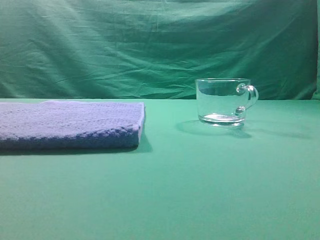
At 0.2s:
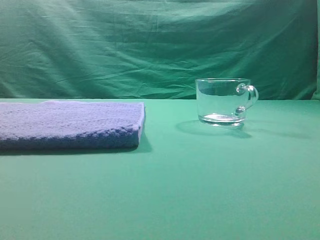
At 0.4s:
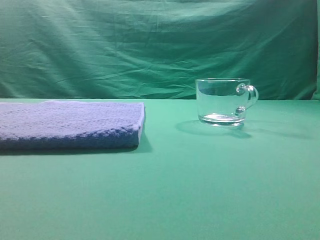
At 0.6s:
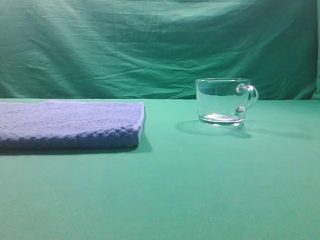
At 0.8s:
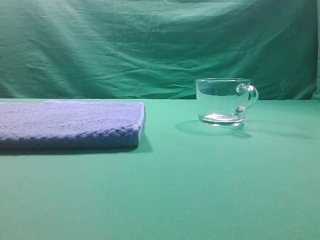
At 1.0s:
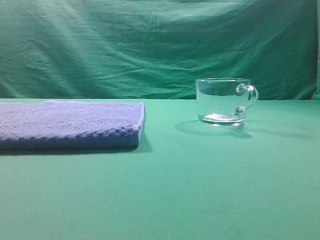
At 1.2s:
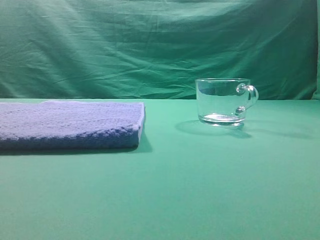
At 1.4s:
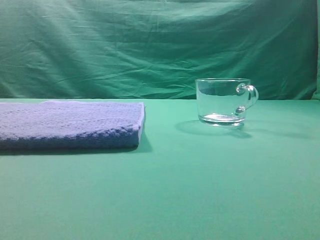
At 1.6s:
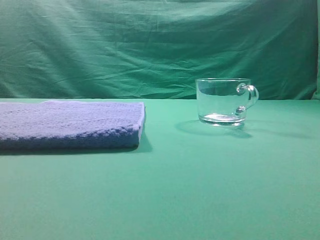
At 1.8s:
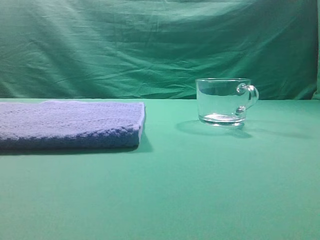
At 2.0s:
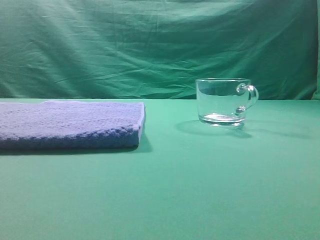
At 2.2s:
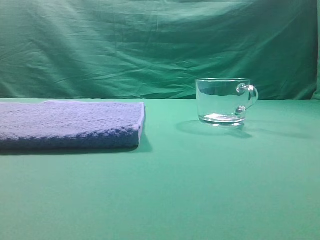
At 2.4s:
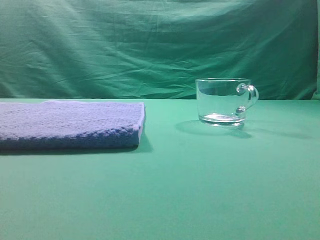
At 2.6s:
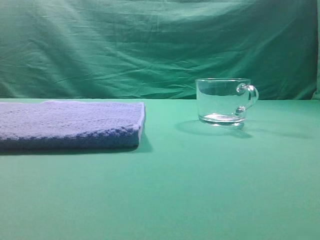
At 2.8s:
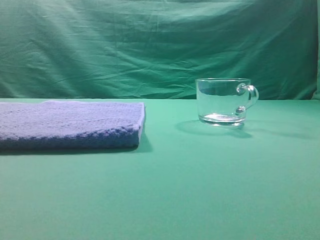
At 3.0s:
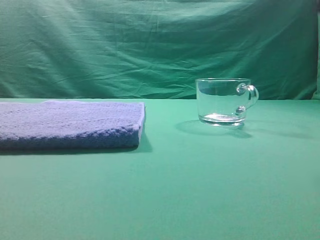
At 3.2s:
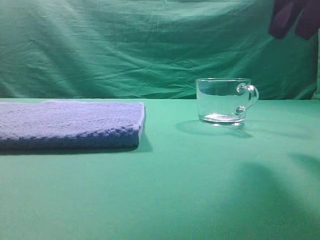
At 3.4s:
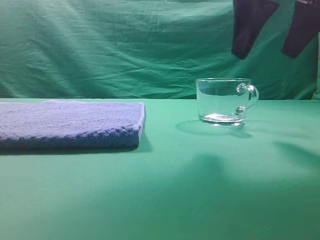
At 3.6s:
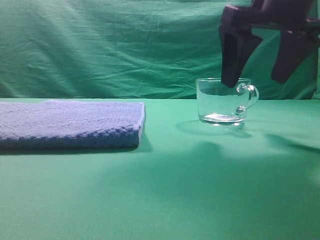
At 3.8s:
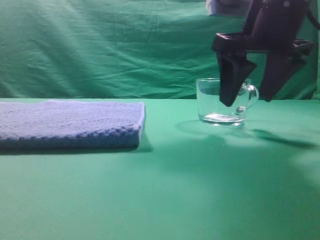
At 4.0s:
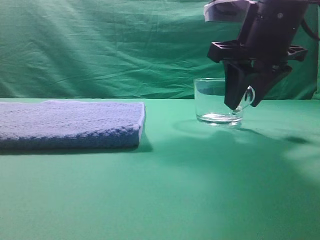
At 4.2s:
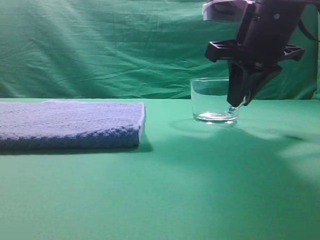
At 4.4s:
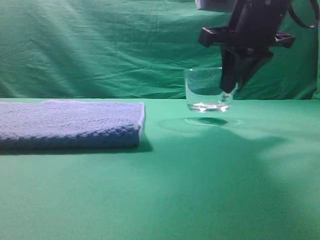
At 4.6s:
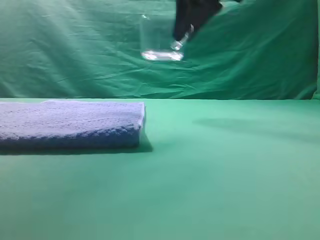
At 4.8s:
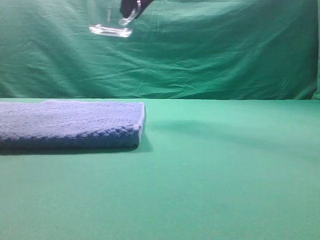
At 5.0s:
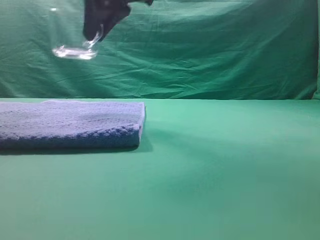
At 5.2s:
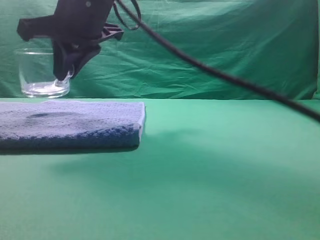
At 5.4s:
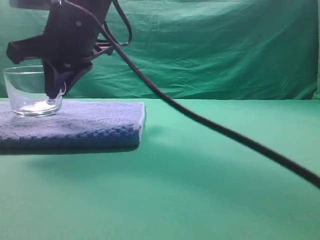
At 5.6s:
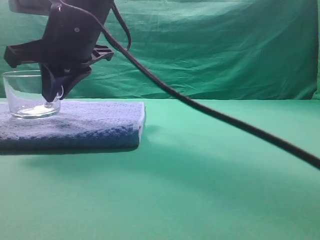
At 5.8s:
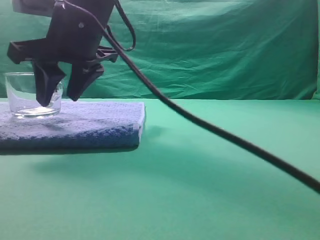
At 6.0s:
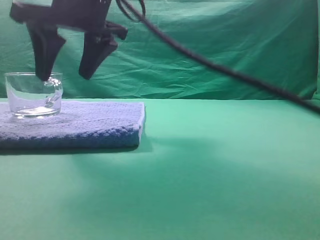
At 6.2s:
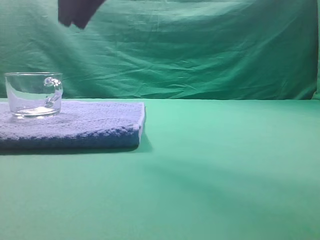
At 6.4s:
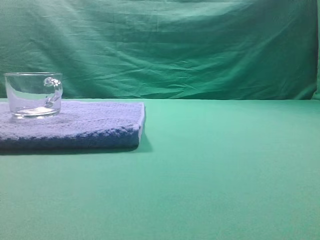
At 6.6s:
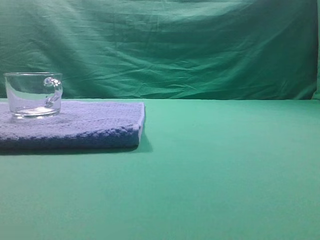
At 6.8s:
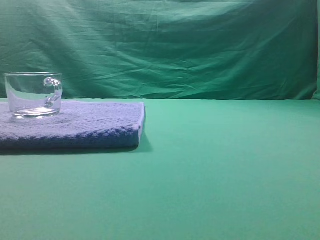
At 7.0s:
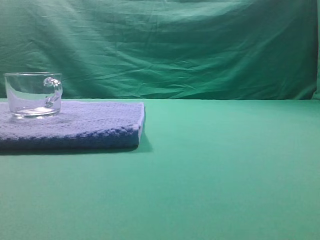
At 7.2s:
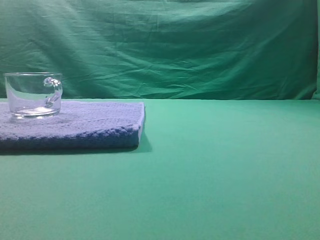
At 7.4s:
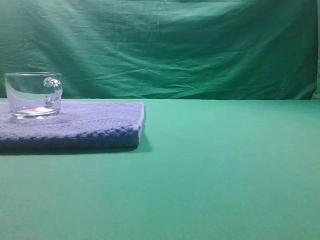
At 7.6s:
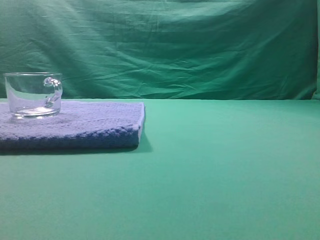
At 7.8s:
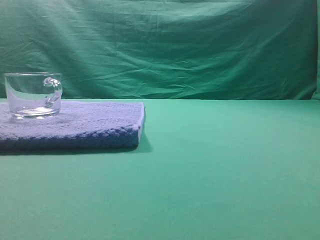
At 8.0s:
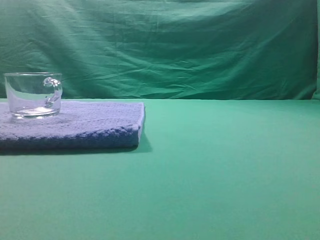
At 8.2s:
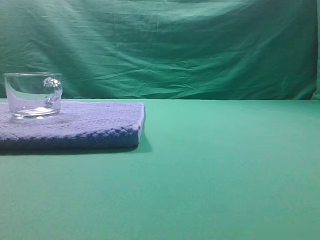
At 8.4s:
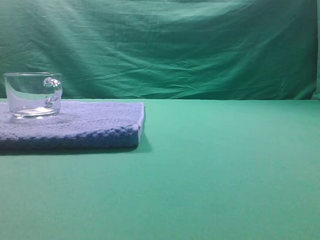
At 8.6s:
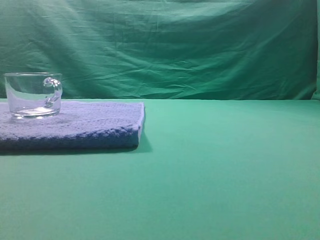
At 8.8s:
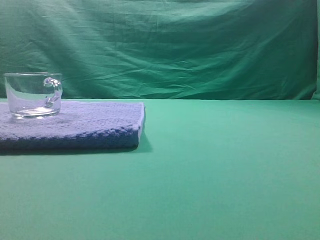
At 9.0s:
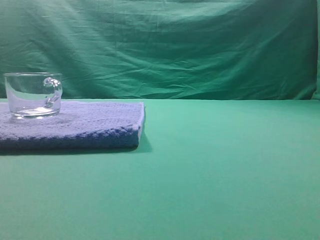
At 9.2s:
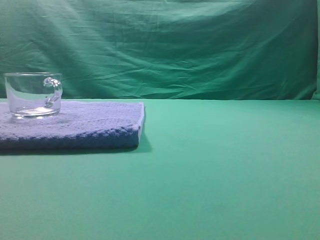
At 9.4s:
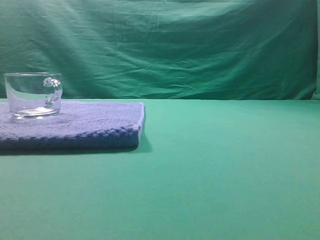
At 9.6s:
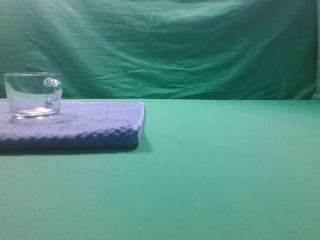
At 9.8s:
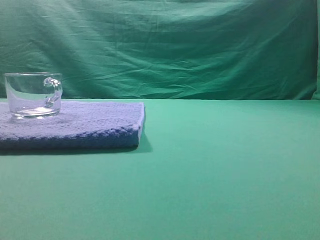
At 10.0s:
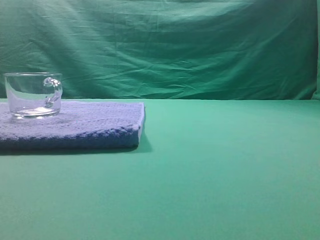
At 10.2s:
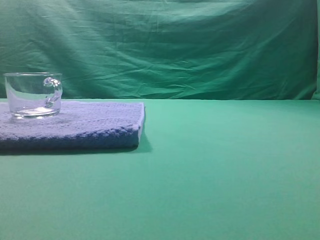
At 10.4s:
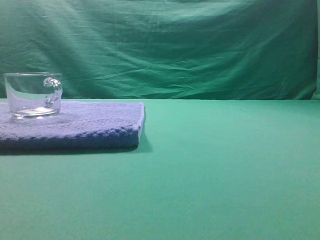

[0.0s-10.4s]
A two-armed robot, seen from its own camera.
Task of the whole recording: grasp the transparent glass cup and place it within the blue towel.
Step, 0.0s to 4.2s: Grasp the transparent glass cup.
Step, 4.6s to 6.0s: Place the glass cup on the blue zone.

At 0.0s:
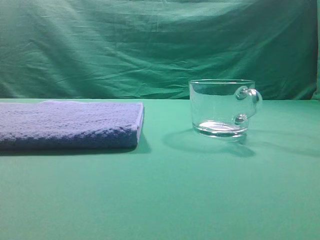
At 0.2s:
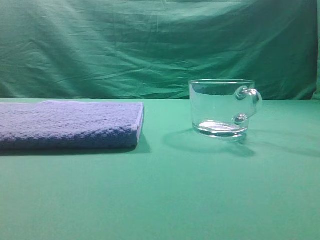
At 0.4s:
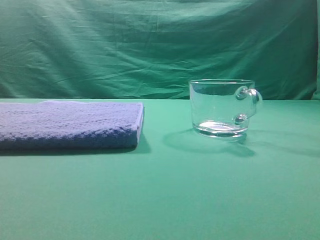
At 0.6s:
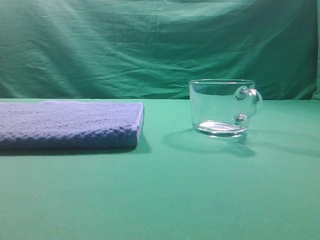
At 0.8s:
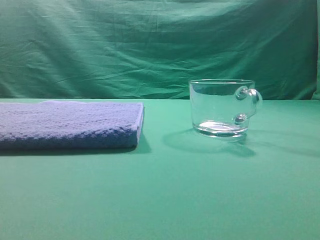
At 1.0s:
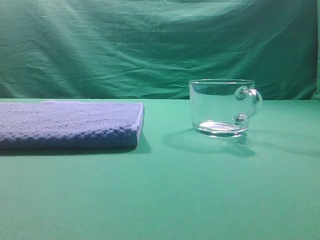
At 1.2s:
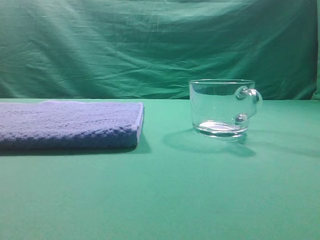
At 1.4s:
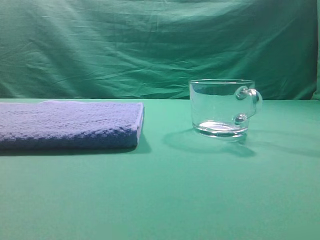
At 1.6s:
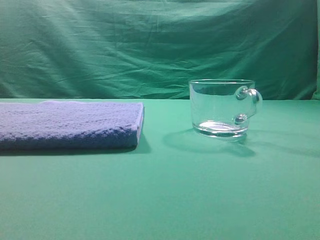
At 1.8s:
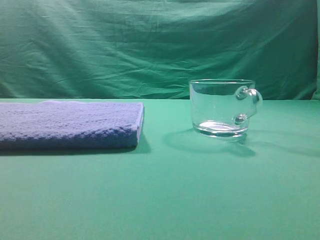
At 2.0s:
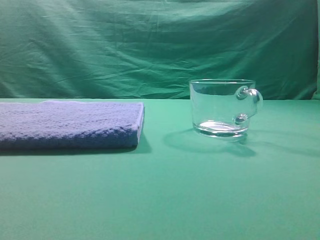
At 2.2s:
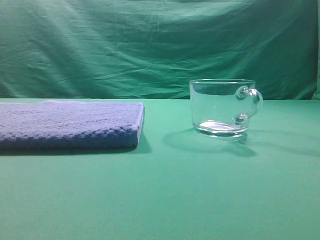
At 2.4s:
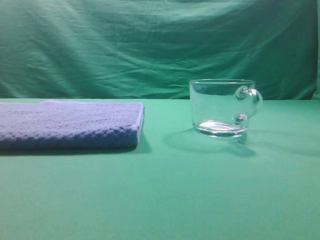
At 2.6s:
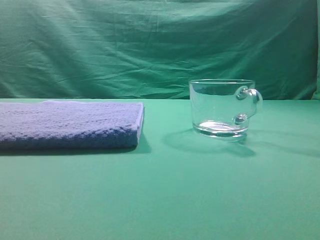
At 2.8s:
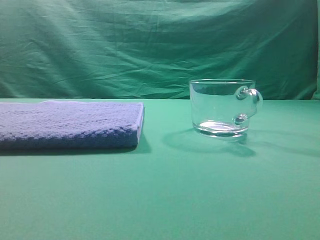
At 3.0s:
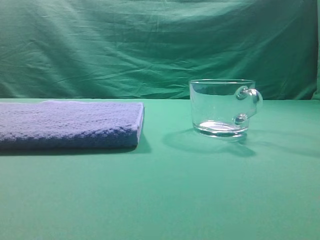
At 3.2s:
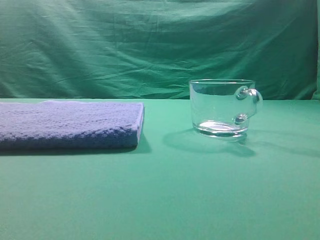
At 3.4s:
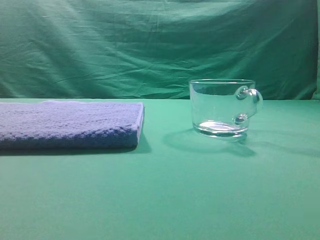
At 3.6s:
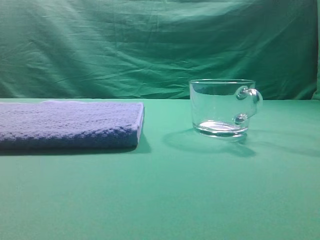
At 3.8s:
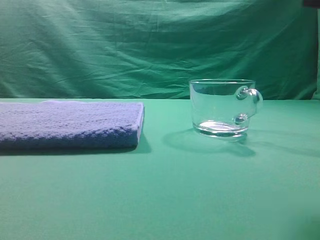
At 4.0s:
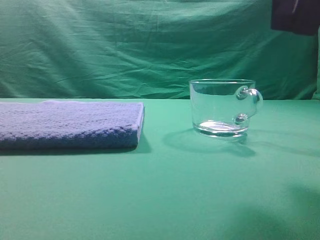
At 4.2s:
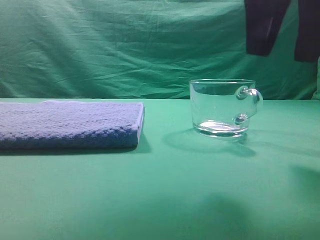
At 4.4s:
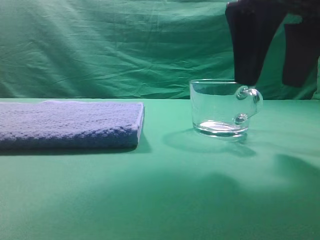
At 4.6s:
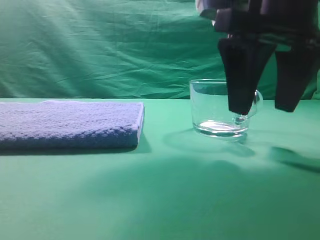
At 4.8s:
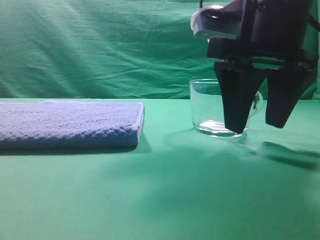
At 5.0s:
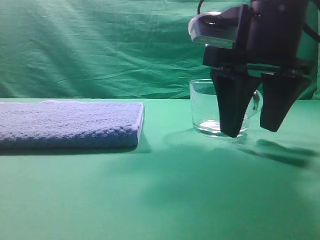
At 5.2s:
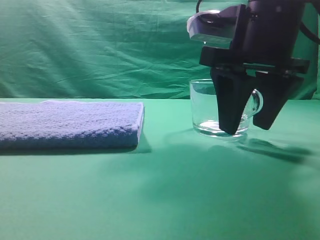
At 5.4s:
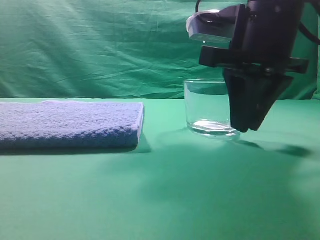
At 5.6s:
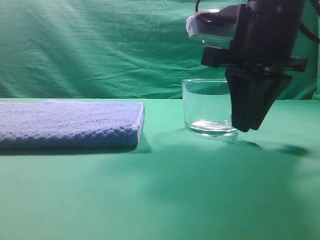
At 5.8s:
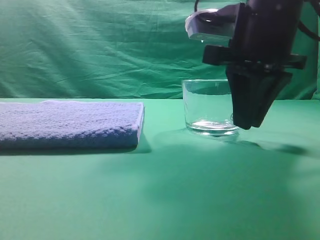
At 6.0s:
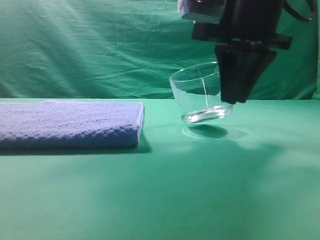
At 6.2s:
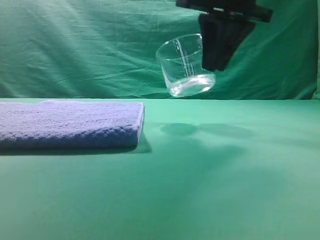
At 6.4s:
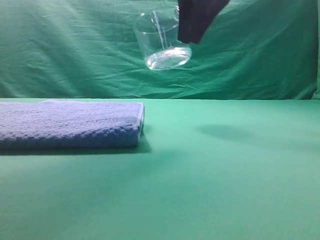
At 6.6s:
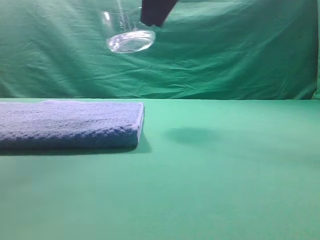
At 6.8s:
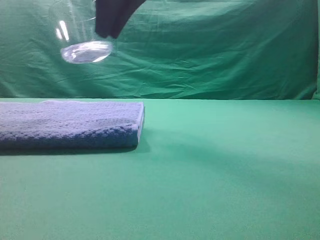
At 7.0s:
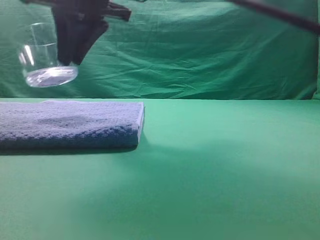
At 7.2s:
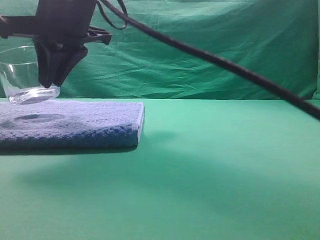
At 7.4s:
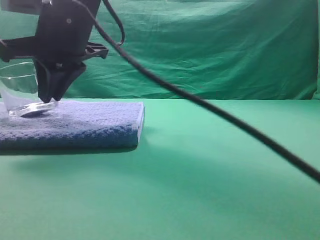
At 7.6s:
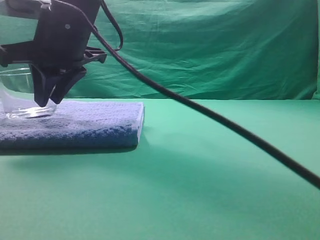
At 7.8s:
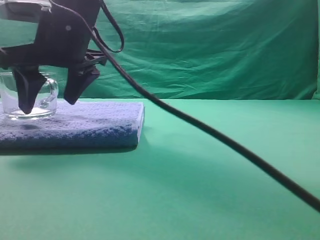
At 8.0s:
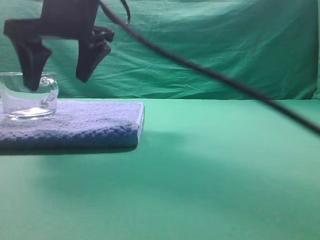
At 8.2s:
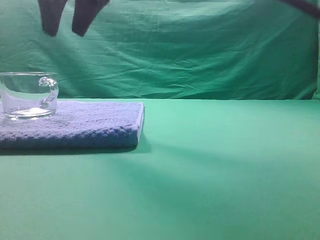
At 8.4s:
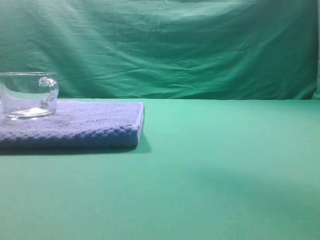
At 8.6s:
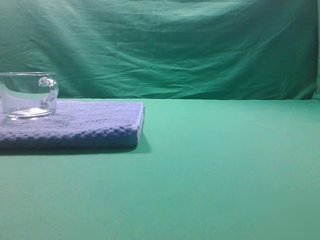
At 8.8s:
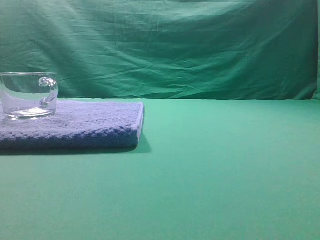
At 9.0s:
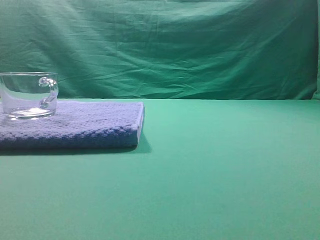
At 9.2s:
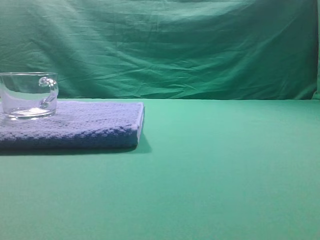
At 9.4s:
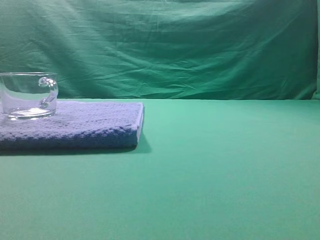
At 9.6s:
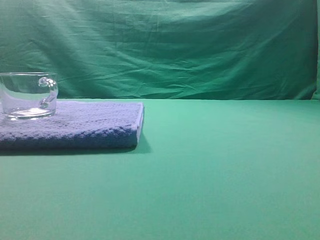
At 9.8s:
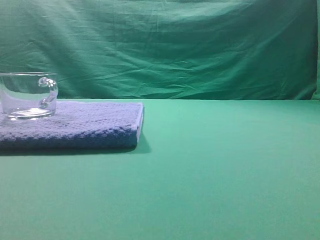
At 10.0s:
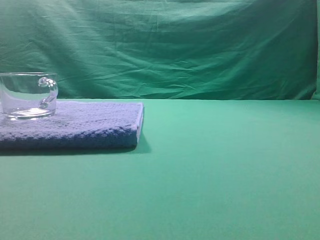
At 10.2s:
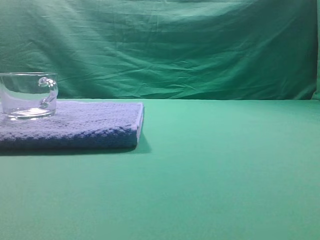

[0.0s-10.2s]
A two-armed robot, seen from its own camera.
Task of the whole recording: grasp the transparent glass cup and place it within the blue towel.
Step, 0.0s to 6.0s: Grasp the transparent glass cup.
Step, 6.2s to 8.0s: Place the glass cup on the blue zone.
